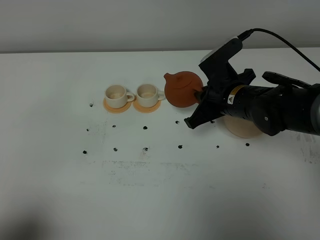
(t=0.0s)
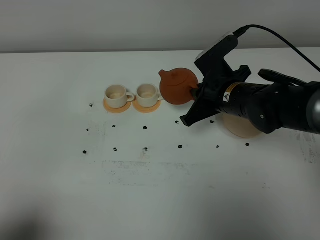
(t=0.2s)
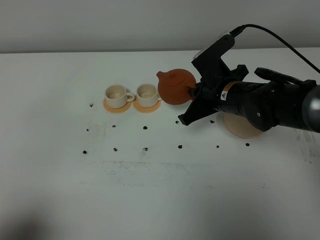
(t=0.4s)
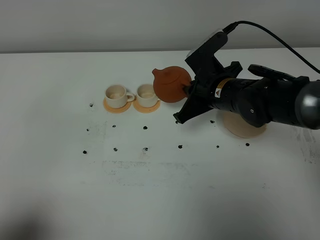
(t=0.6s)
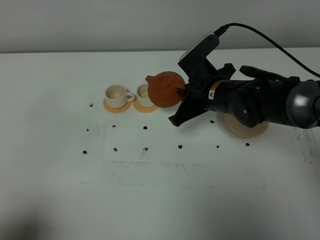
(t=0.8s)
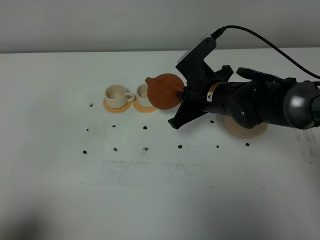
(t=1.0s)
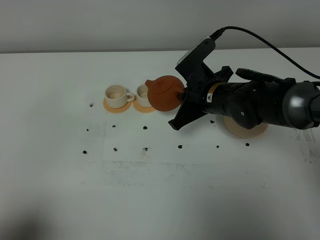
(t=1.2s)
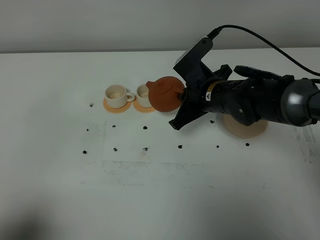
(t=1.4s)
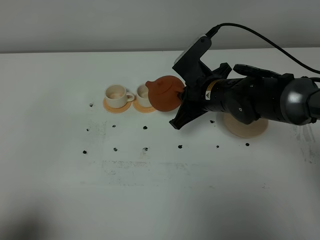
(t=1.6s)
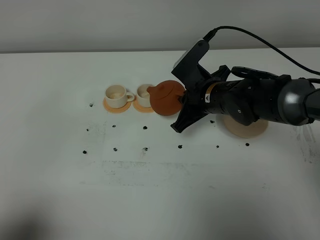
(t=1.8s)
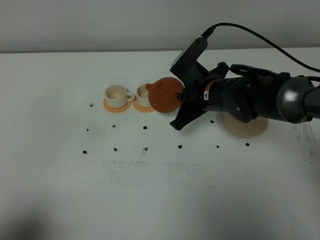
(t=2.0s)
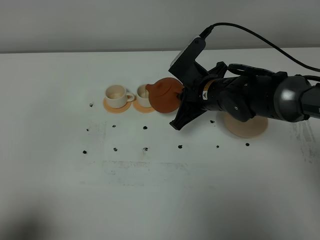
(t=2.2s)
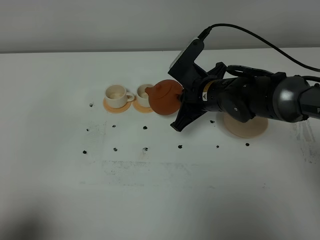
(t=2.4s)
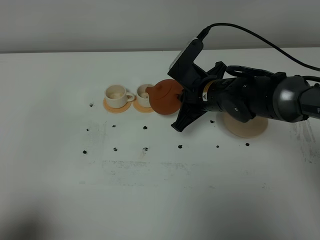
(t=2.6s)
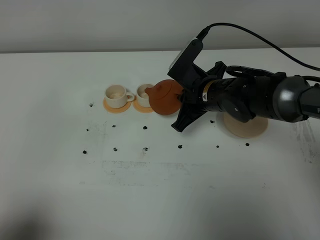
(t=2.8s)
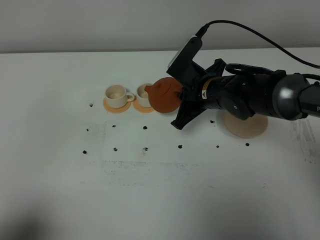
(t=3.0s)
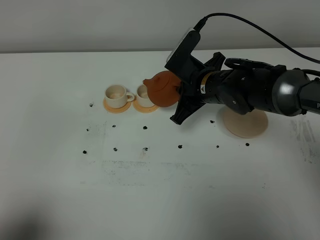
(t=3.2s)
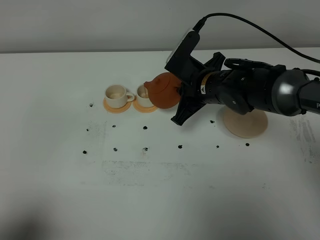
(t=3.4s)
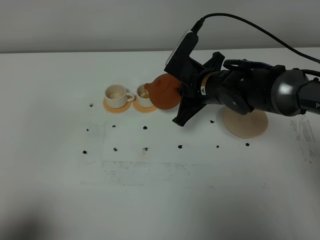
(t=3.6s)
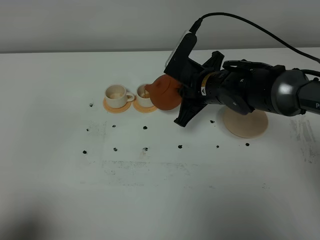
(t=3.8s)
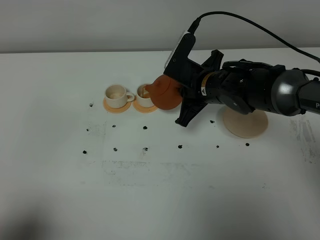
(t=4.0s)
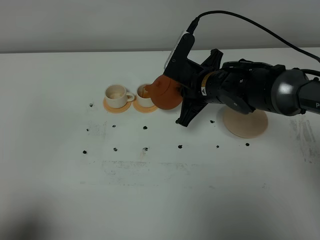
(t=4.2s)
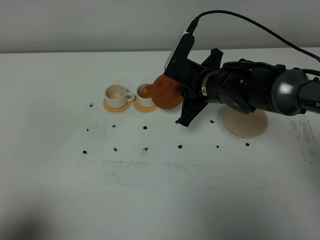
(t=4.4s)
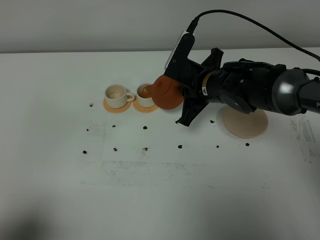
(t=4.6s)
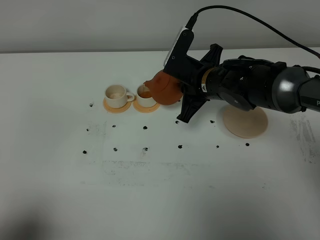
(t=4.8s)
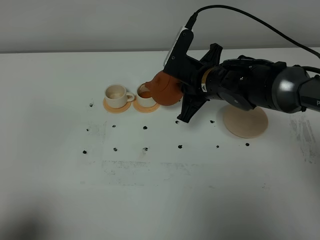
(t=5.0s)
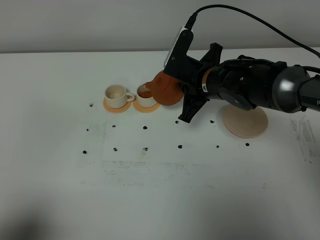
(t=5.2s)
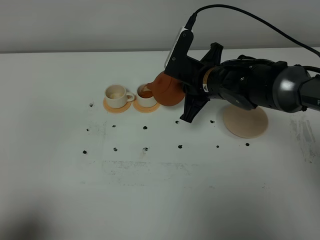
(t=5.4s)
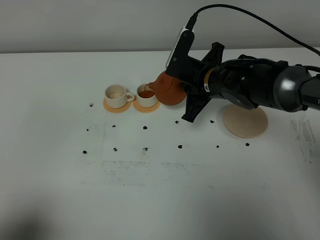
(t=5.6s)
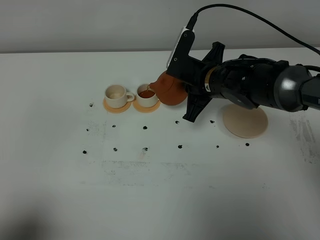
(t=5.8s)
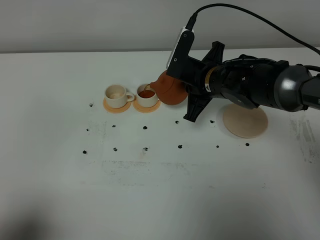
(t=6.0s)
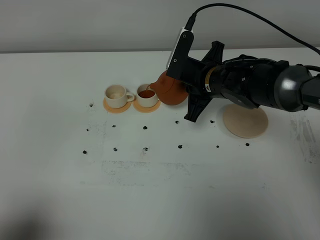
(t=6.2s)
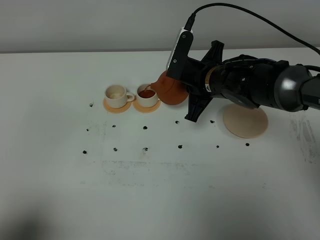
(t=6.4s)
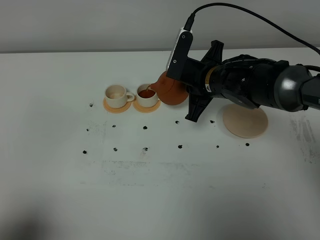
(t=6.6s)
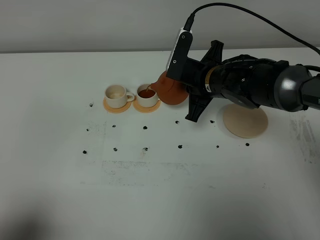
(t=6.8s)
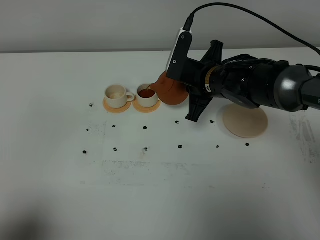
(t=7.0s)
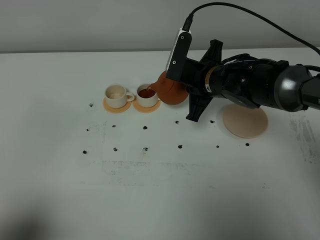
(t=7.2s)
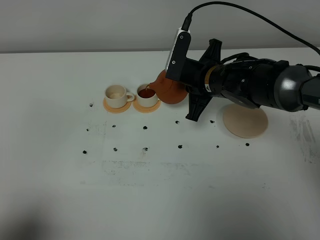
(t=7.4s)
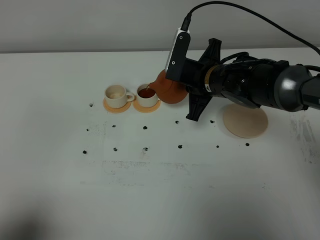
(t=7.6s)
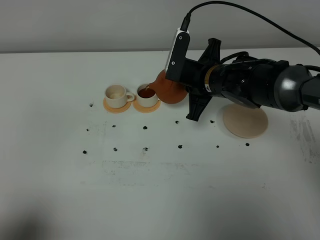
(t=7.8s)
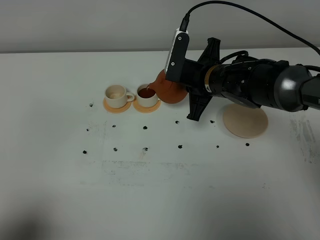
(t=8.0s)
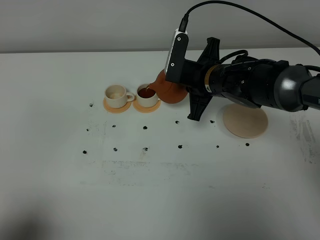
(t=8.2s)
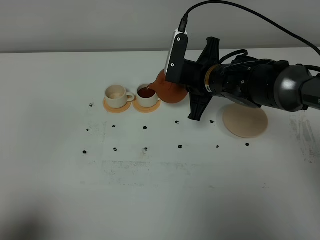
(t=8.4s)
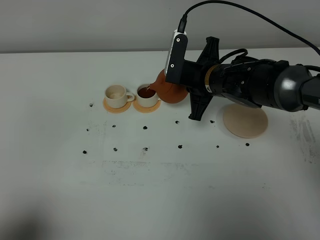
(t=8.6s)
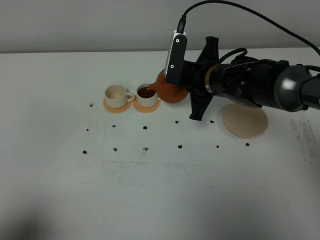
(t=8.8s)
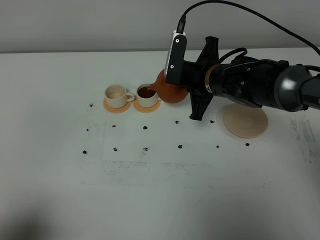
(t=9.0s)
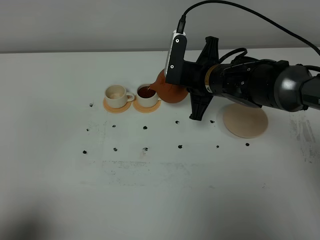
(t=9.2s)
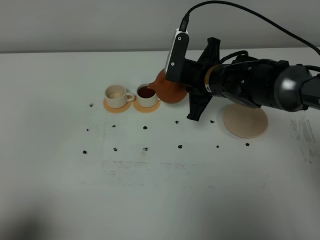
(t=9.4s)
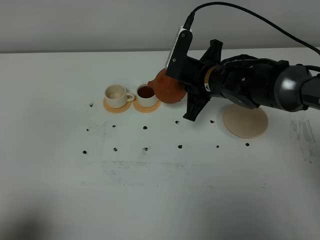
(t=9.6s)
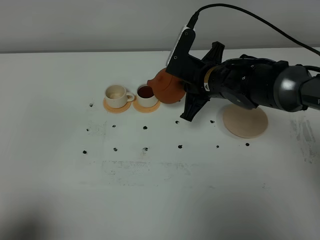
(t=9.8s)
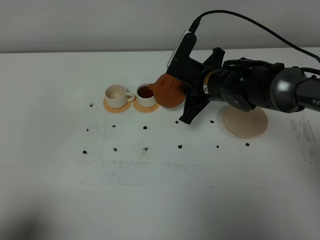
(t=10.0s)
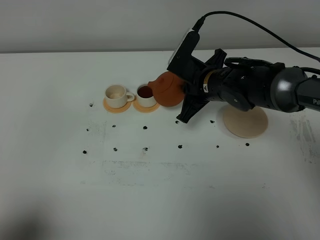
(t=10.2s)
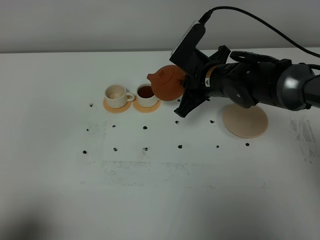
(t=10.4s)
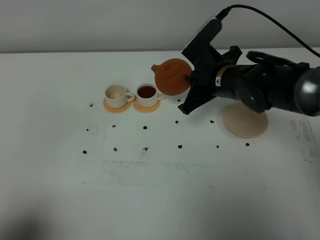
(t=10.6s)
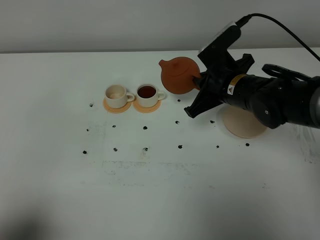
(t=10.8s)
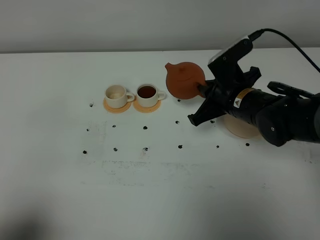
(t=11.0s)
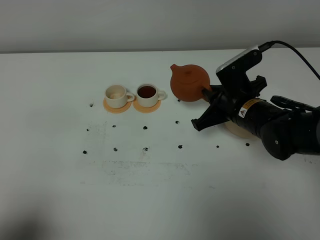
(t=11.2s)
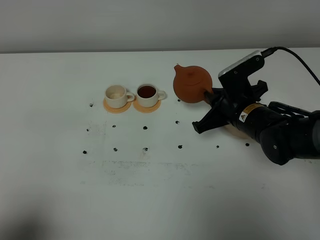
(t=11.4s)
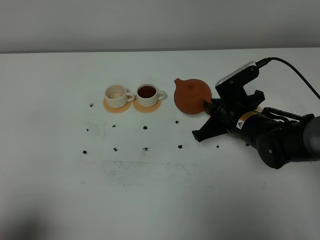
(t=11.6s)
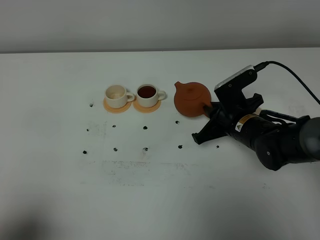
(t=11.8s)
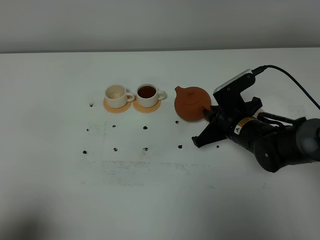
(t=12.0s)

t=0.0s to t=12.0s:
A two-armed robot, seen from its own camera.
Task of the whole recording: grasp the brown teapot and pour the tea into the two white teacups one by one, put the brown teapot back in its original place.
t=0.0s to t=3.0s: There are only small adjustments of the grippers.
t=3.0s to t=6.0s: The grippers stay close to where they were, moving slightly.
t=6.0s to t=9.0s: The grippers move only a little.
t=10.4s to t=12.0s: The right gripper shifts roughly 10 cm downward, backward and to the right.

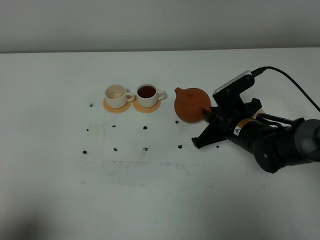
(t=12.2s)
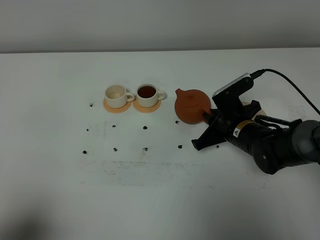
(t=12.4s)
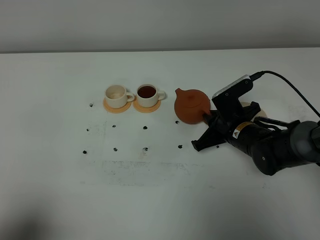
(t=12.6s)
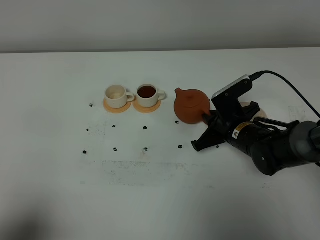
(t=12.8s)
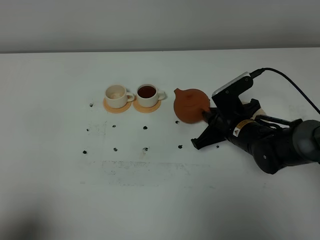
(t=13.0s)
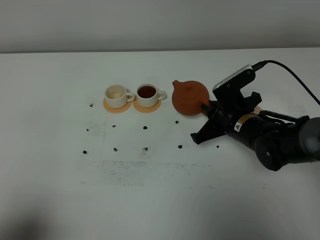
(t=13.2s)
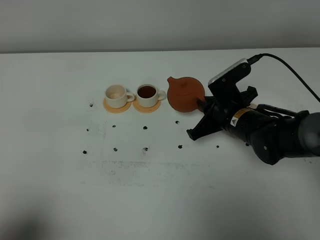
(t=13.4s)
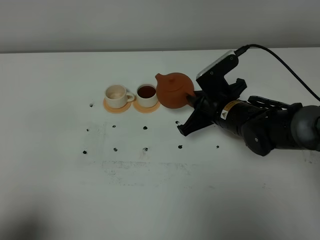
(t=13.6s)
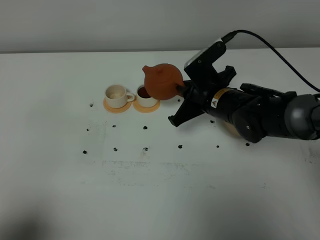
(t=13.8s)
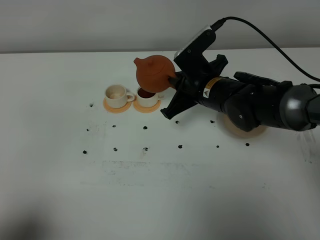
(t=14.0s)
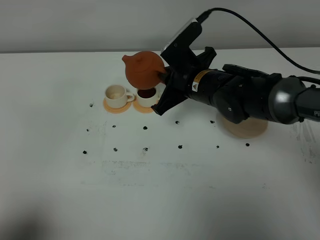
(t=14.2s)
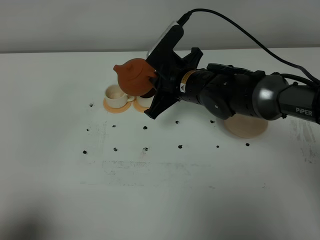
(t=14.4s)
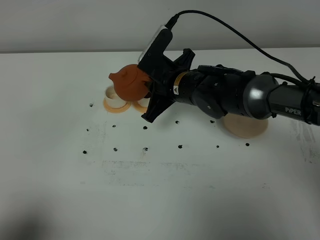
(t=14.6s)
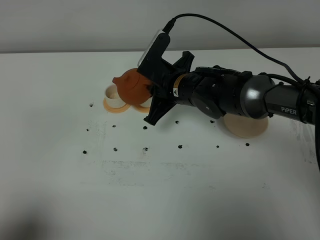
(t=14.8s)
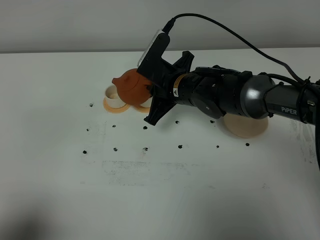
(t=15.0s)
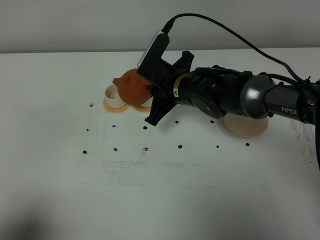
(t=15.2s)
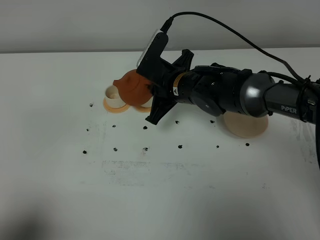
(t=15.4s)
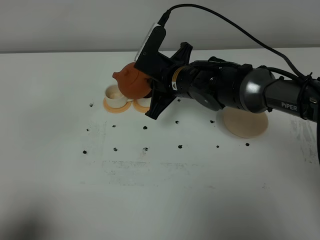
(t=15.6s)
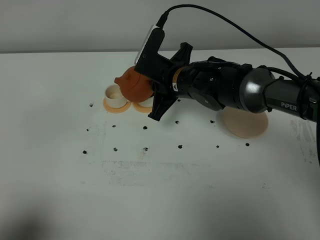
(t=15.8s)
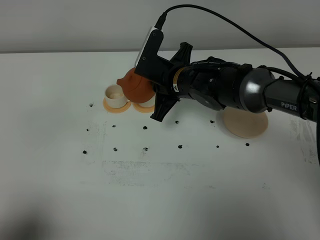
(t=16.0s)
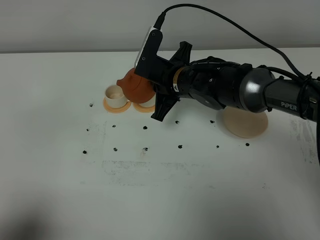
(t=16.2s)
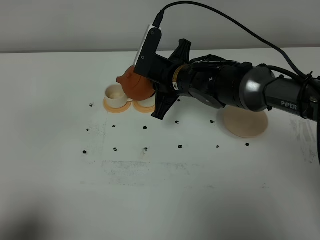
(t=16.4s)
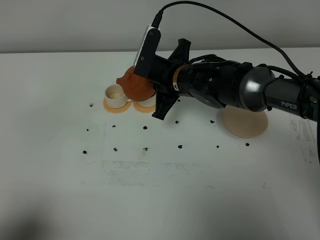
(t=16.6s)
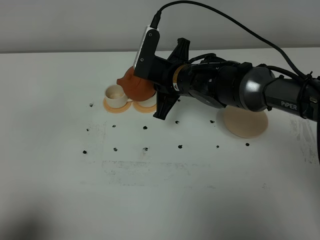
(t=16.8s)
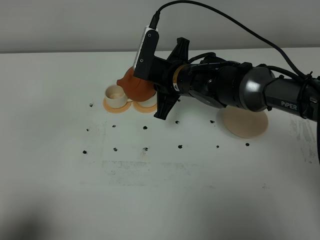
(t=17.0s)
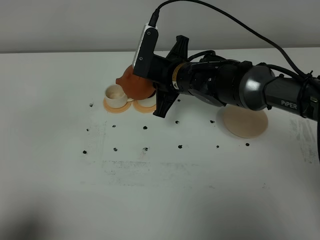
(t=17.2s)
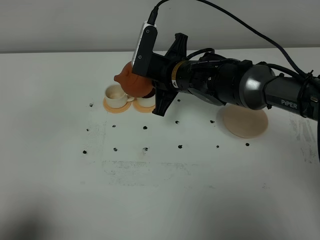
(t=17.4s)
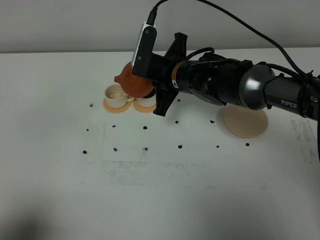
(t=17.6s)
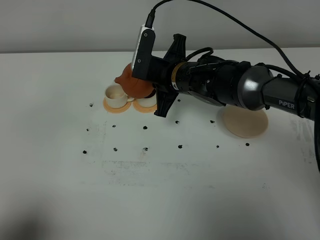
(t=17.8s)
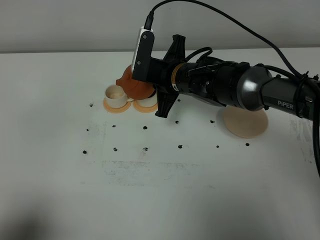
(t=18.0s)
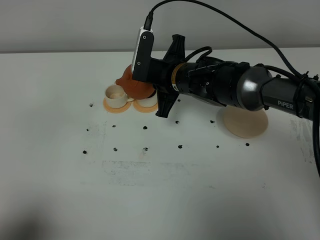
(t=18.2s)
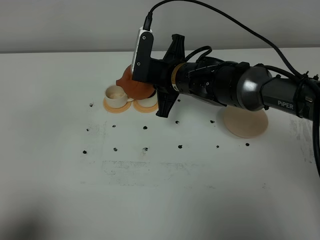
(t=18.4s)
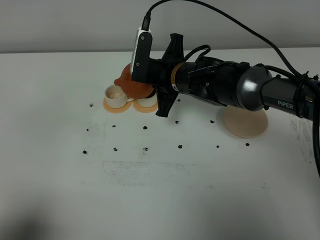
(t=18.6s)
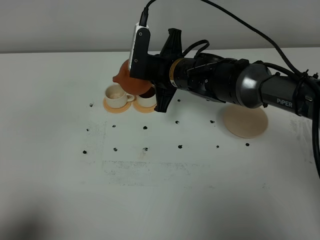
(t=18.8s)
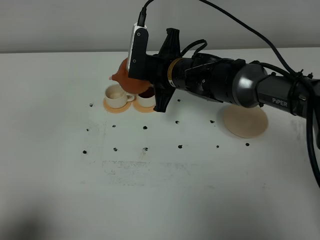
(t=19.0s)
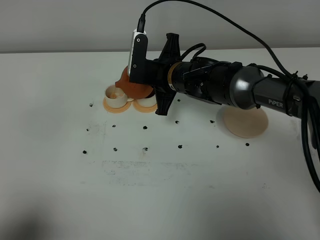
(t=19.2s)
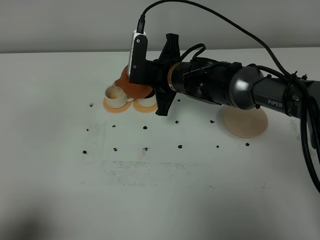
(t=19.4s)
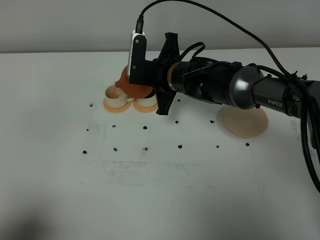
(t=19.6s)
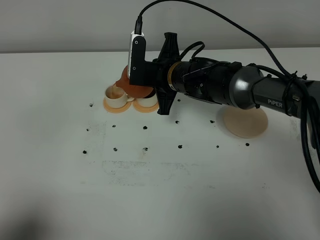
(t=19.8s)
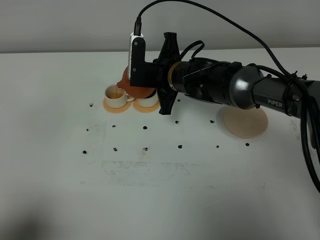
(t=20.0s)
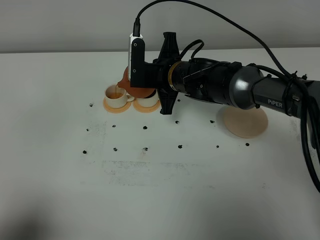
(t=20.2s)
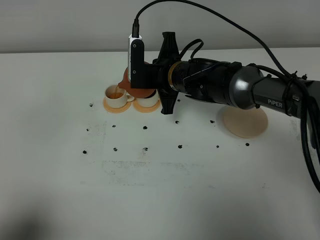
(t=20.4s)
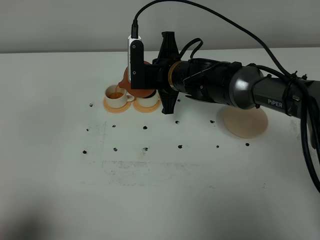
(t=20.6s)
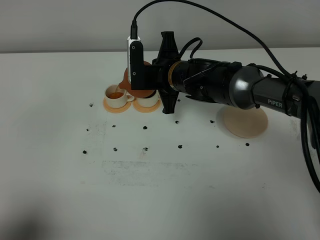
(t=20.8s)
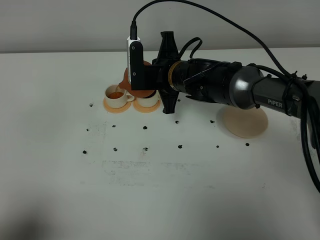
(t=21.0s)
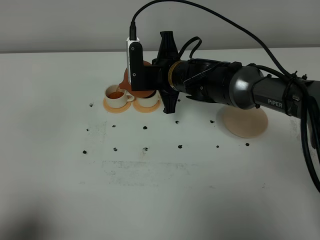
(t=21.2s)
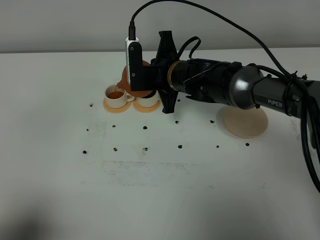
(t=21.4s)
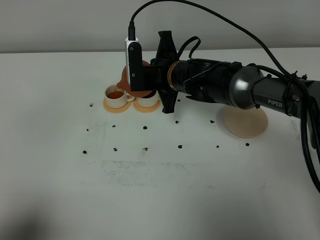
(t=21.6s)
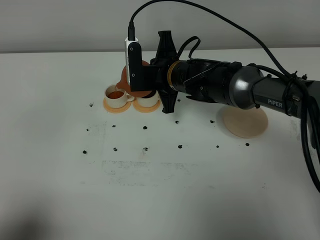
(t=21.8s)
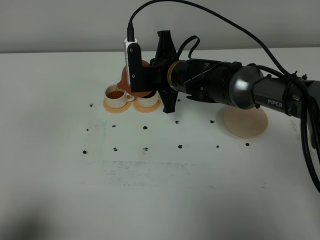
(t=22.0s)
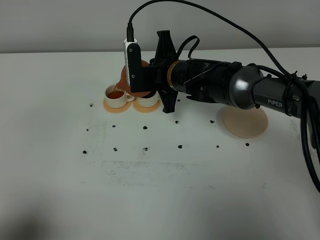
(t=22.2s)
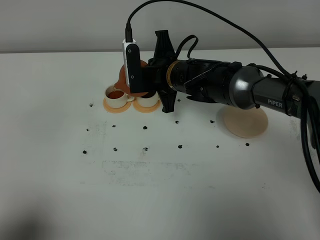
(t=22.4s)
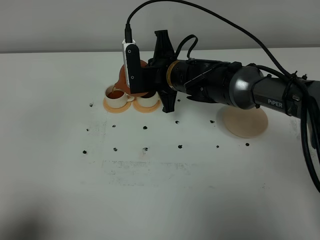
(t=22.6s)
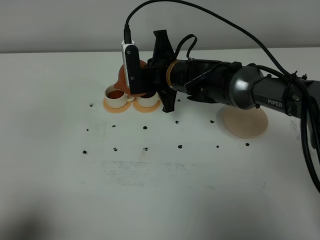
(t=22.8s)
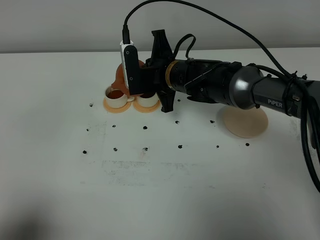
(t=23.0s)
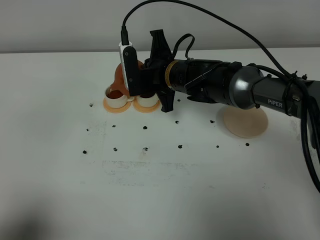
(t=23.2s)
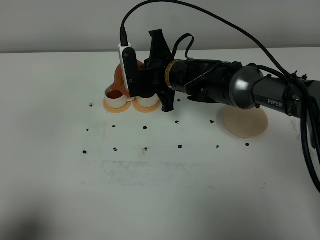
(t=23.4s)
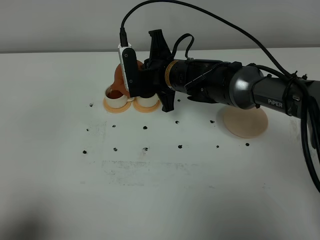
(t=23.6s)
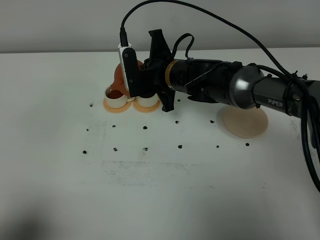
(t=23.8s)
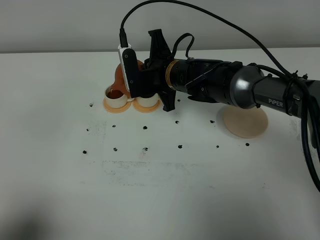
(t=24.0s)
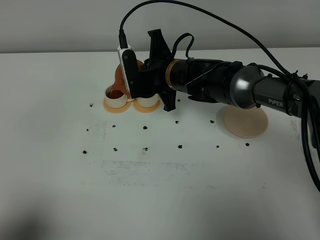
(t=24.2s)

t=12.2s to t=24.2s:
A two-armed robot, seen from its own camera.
Task of the whole recording: grasp the brown teapot and pour the tea into the two white teacups one by one, put the brown teapot back in its original place.
t=12.2s to t=13.8s: The right gripper shifts roughly 10 cm upward and to the left.
t=13.8s to t=15.2s: The right gripper moves to the left, roughly 5 cm.
t=15.2s to t=16.6s: The grippers move only a little.
t=16.6s to t=19.8s: There are only small adjustments of the grippers.
t=19.8s to t=21.2s: The grippers move only a little.
t=21.2s to t=22.6s: Neither gripper changes place.
t=22.6s to t=24.2s: The grippers move only a little.
